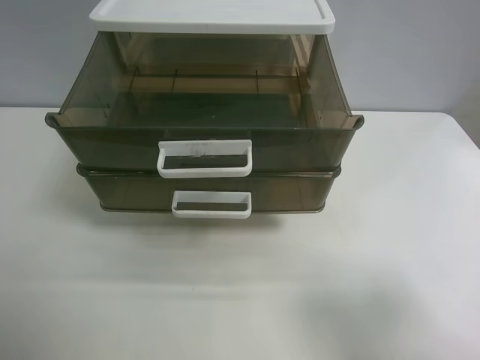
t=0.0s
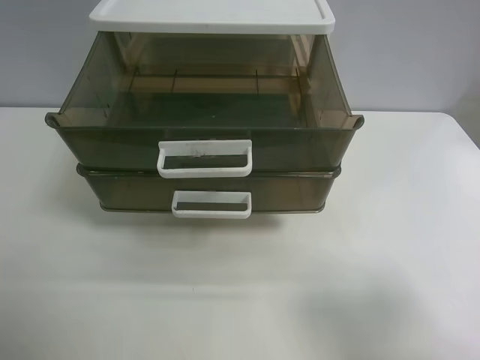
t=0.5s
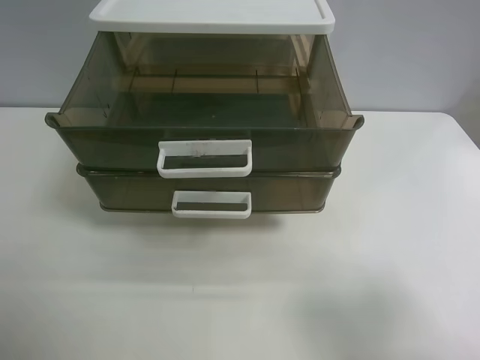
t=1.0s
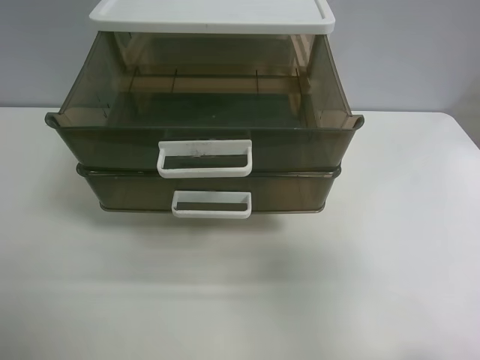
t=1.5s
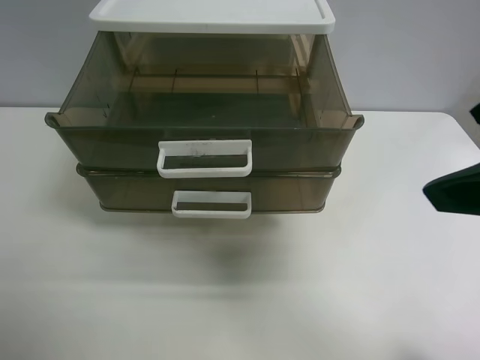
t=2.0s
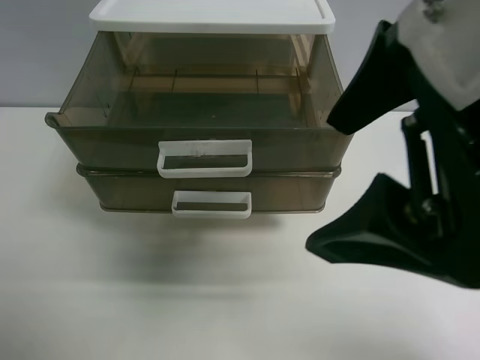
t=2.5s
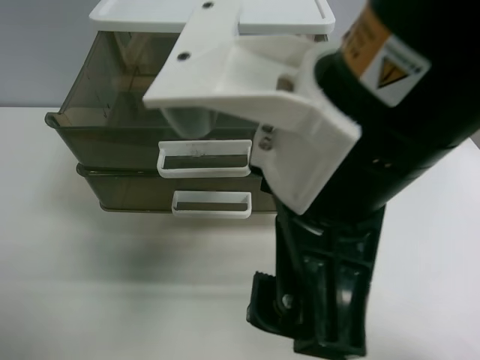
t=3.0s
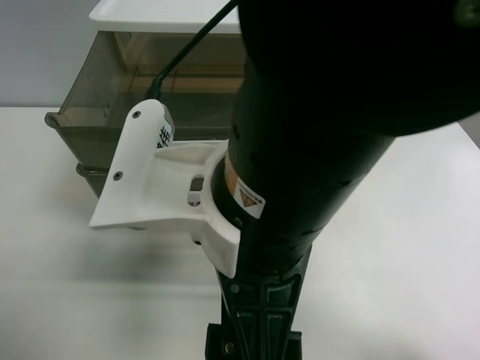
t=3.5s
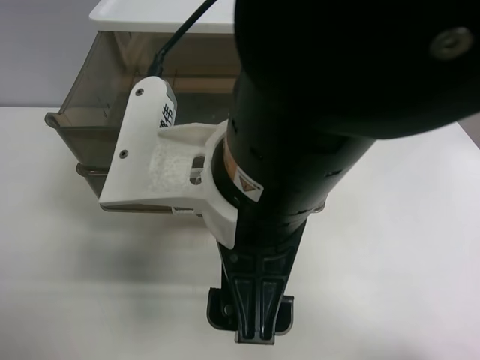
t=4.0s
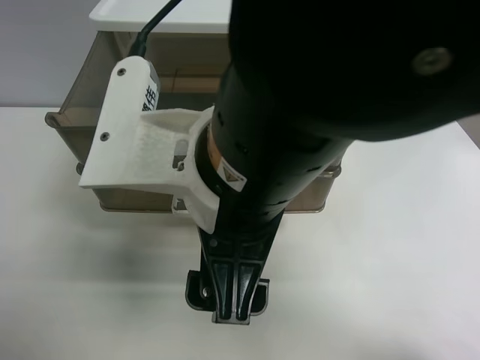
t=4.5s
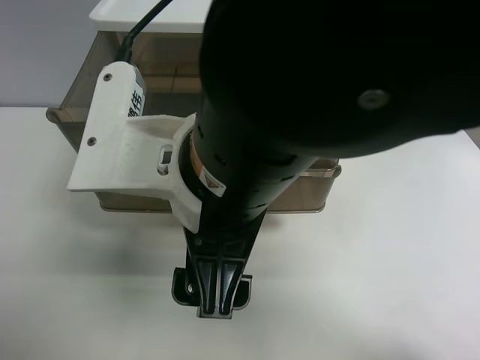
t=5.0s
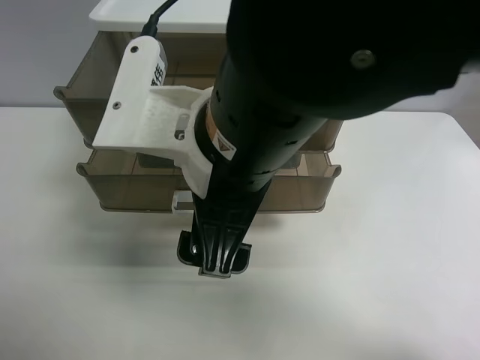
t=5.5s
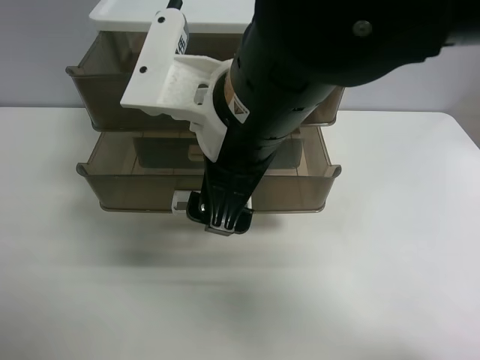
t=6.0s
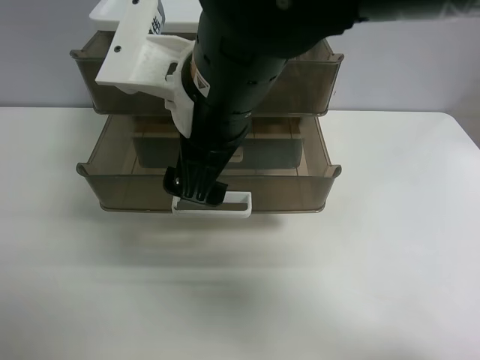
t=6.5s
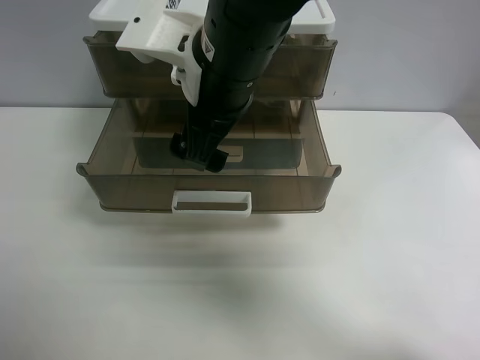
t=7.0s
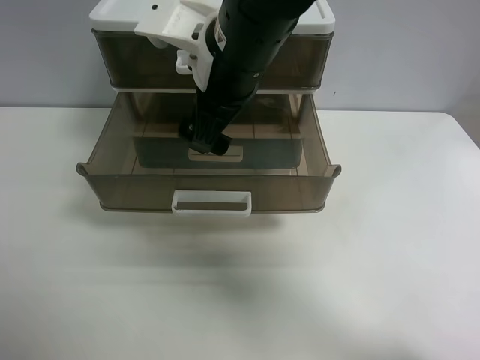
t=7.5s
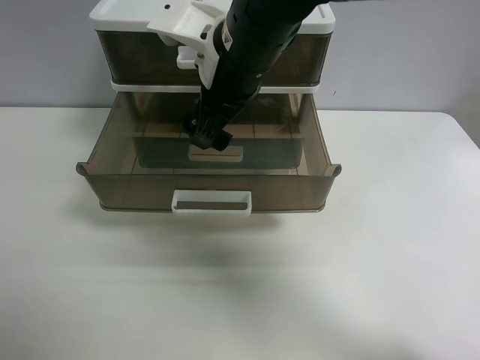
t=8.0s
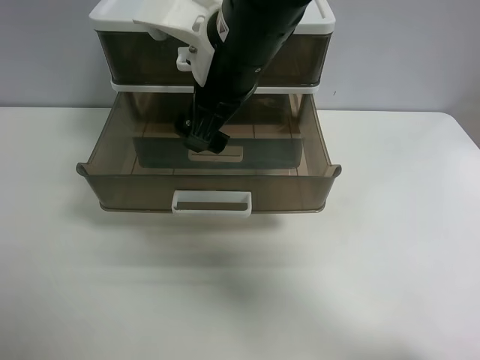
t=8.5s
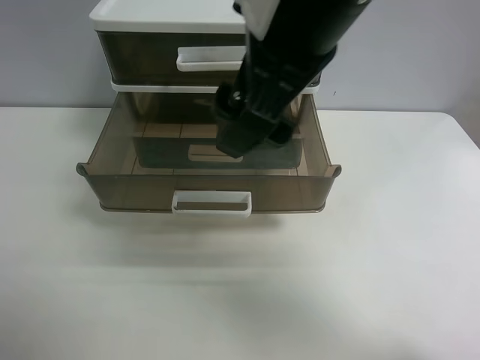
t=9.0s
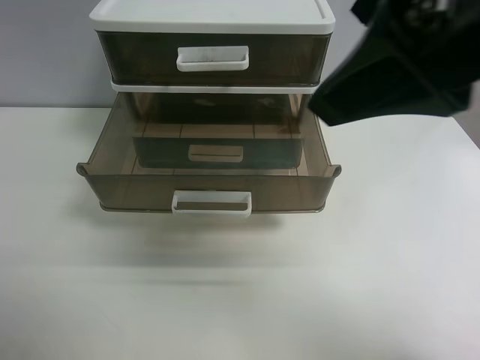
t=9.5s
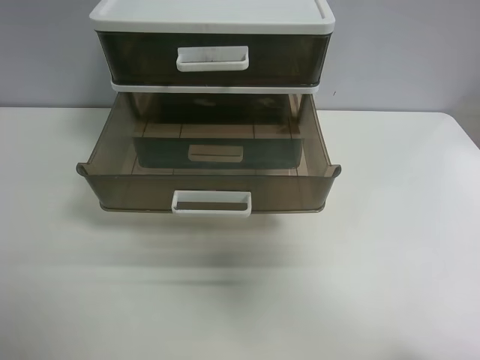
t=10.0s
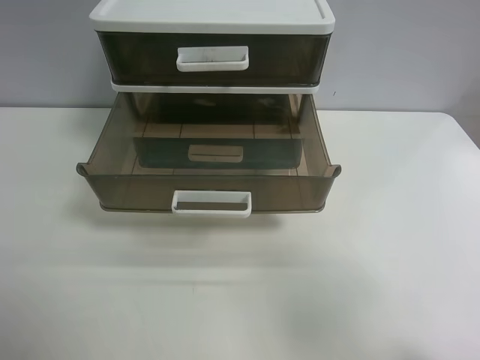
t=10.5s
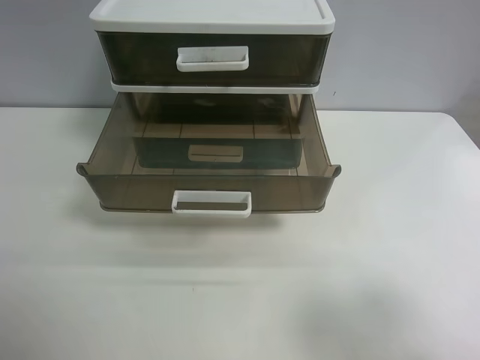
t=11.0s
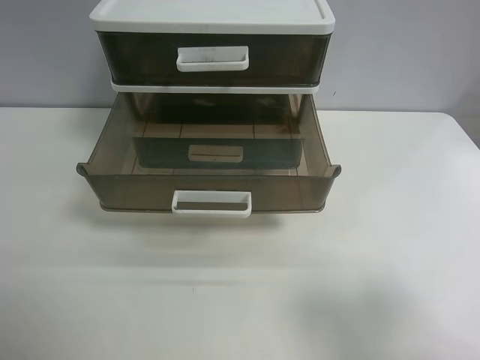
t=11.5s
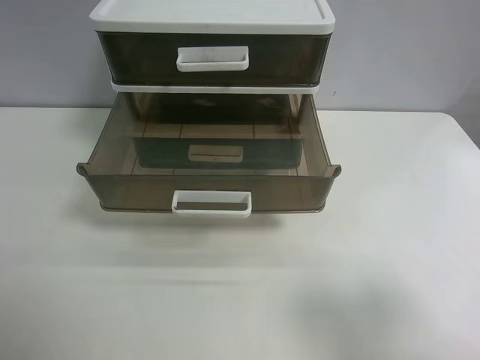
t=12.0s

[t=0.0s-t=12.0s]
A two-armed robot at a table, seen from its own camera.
Task of the whole recording: close the top drawer.
Step, t=0.0s to t=4.5s: Use the right gripper to touch the topmost layer of the storage cabinet.
Step, t=5.0s to t=8.5s: Push the top drawer closed.
t=0.0s to t=2.0s: The right gripper goes some 15 cm forward, upward and to the left.
t=2.0s to t=4.0s: The right gripper shifts about 20 cm to the left and downward.
t=4.0s to t=6.0s: The right gripper shifts approximately 5 cm forward.
t=6.0s to t=8.0s: The right gripper moves forward, some 10 cm.
t=8.0s to t=10.0s: The right gripper is displaced backward, to the right and upward by about 35 cm.
t=10.0s to t=12.0s: The right gripper moves downward, some 15 cm.
